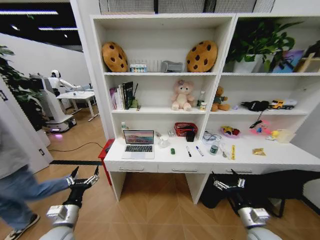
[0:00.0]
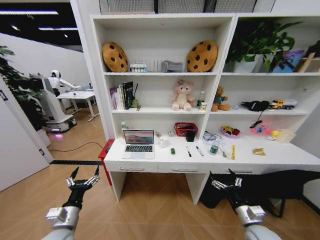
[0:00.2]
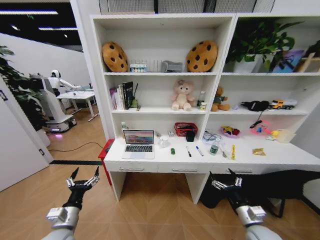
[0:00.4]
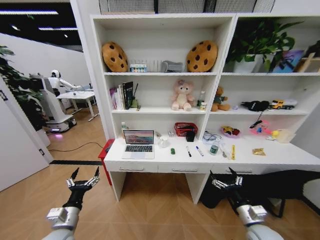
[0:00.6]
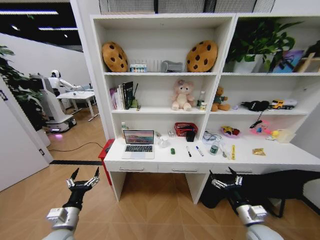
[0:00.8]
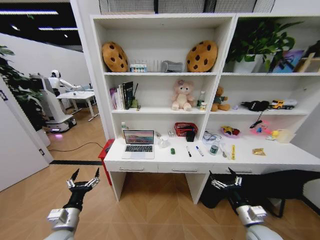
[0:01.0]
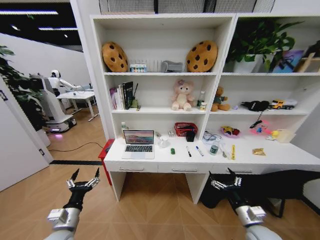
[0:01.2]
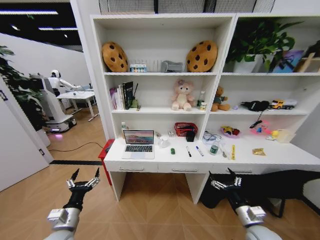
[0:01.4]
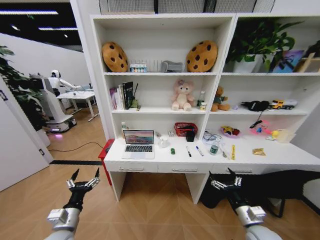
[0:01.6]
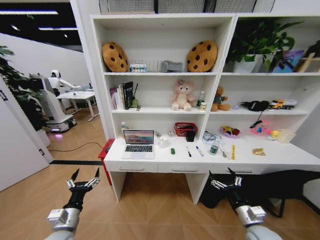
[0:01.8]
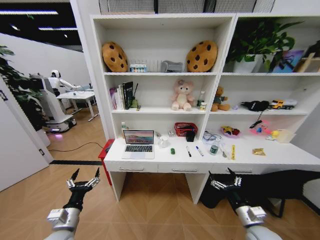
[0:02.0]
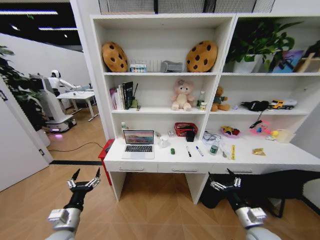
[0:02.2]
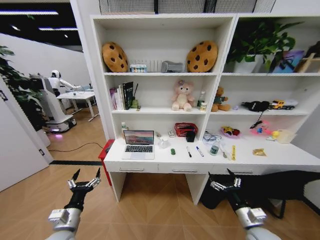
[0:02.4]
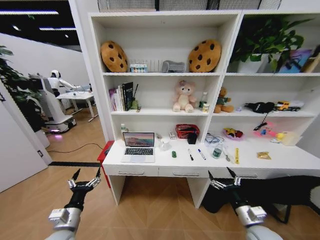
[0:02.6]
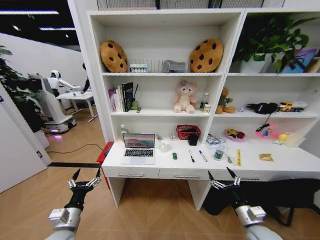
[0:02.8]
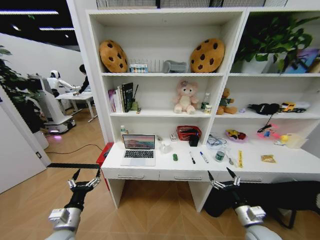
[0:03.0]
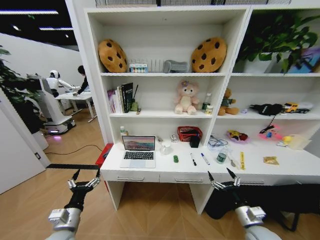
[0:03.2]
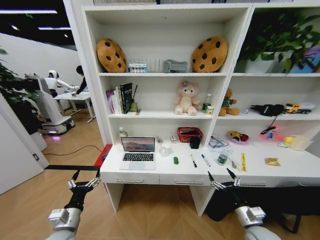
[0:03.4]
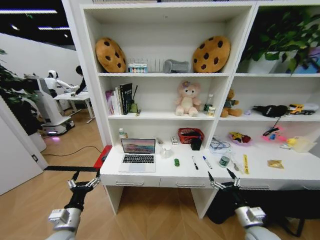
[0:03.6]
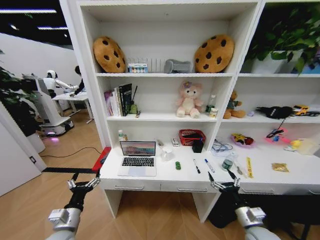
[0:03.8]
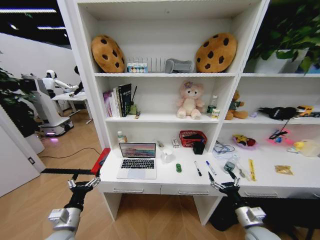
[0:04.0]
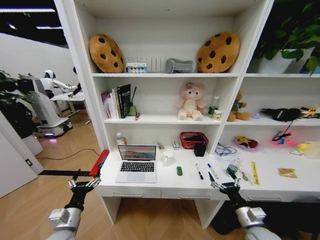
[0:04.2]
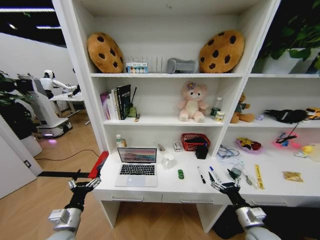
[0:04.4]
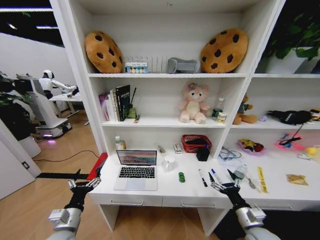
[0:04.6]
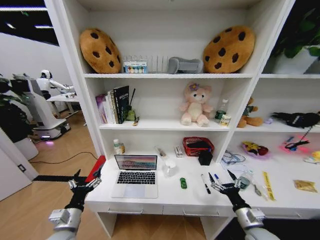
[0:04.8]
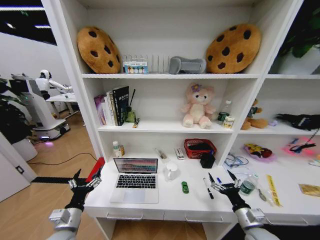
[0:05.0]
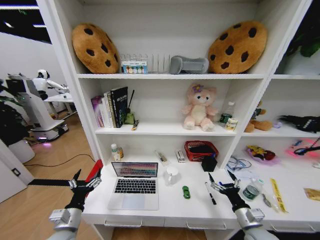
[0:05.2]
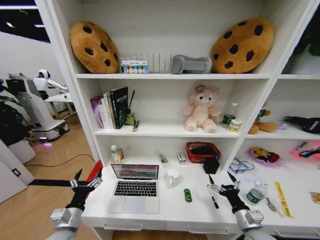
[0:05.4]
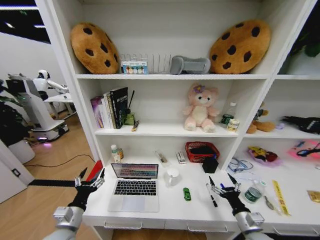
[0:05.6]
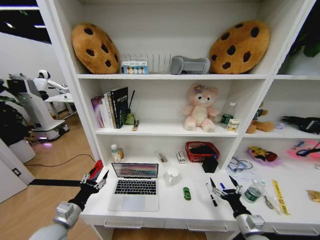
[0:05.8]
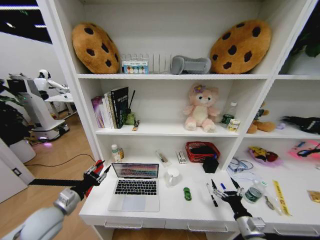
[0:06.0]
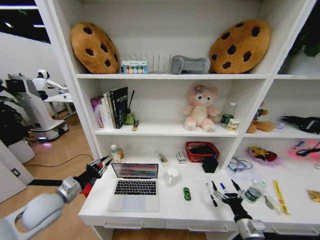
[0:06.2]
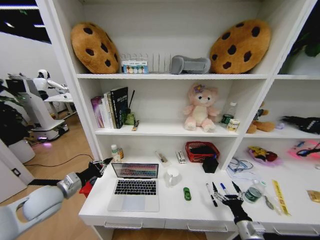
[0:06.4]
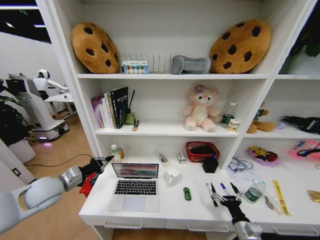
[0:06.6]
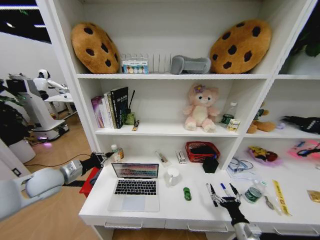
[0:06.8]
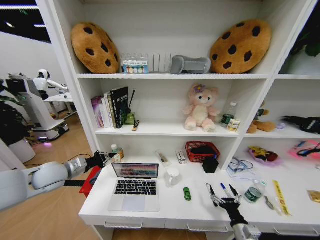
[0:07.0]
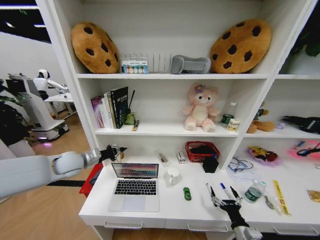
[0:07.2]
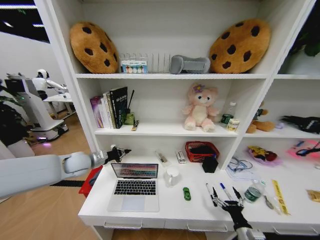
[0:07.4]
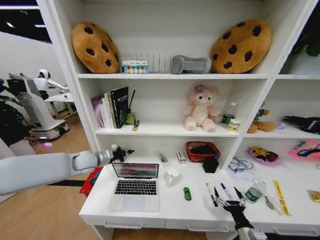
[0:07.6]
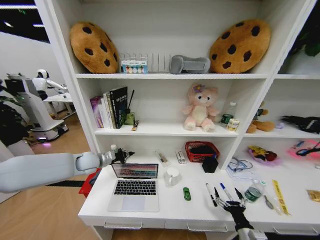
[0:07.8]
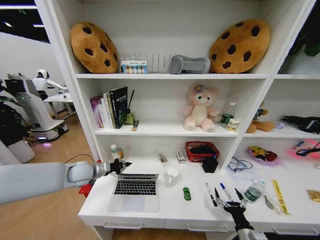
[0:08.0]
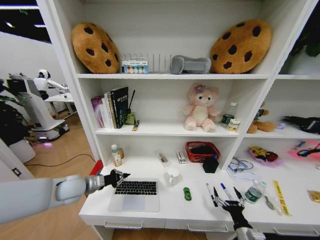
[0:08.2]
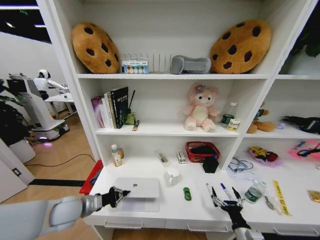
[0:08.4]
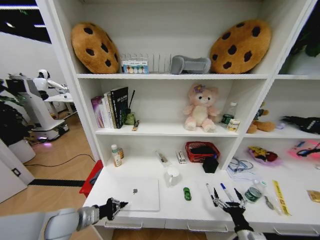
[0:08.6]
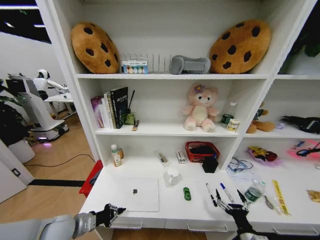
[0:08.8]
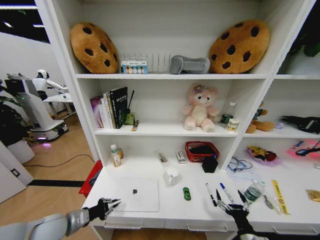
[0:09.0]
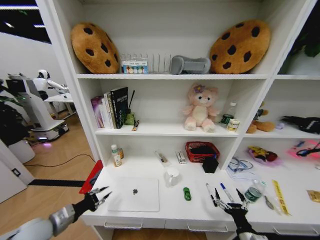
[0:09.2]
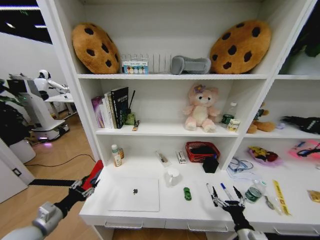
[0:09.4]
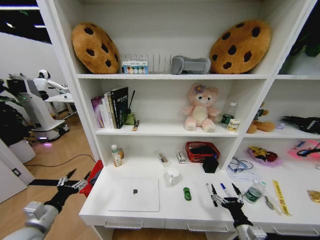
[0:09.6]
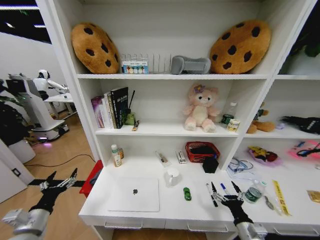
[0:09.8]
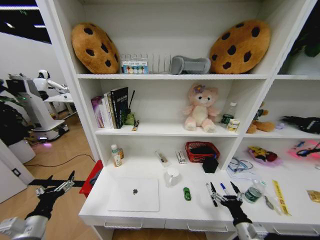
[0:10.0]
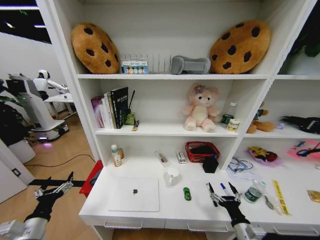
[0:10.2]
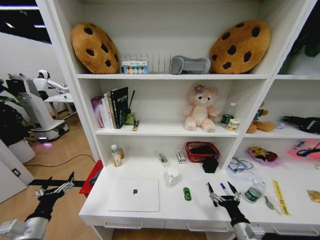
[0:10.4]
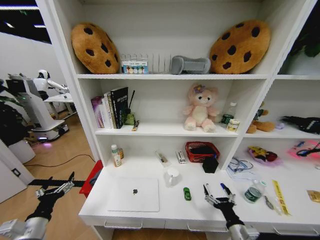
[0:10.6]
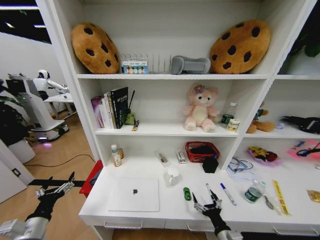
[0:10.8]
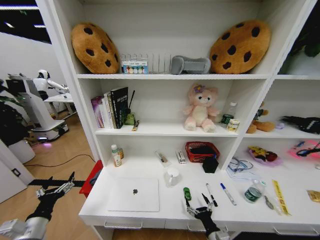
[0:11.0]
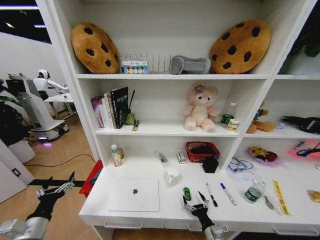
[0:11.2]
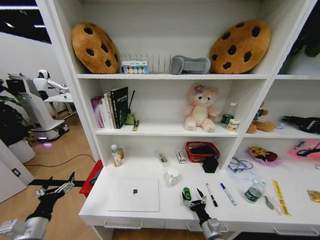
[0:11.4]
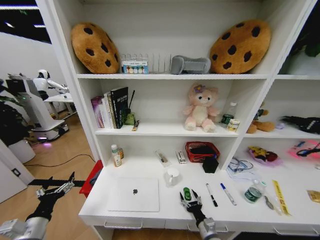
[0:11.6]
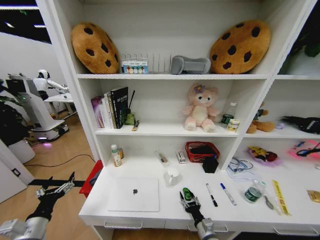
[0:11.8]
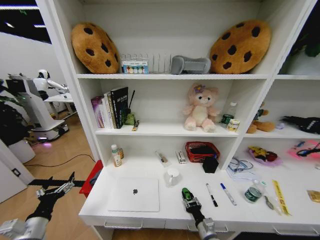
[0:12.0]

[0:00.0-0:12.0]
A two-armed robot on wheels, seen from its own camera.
Task of the whole recording: Organize the objects on the table.
0:04.4 to 0:06.0: The left gripper is displaced upward by some 5 cm, and closes.
0:06.0 to 0:07.6: The left gripper goes approximately 20 cm forward, and closes up.
0:07.6 to 0:09.0: The left gripper shifts some 25 cm backward and downward.
0:09.0 to 0:10.4: The left gripper goes about 5 cm backward, and opens its fingers.
0:10.4 to 0:12.0: The right gripper heads downward and to the left, covering some 15 cm, and closes its fingers.

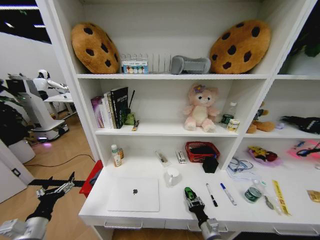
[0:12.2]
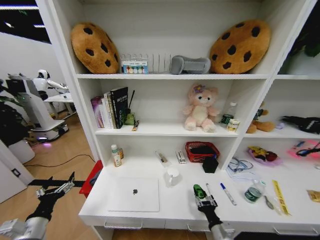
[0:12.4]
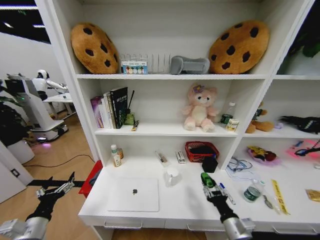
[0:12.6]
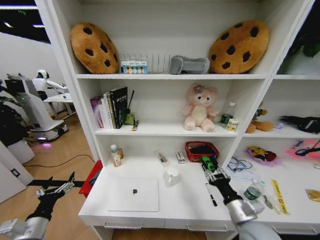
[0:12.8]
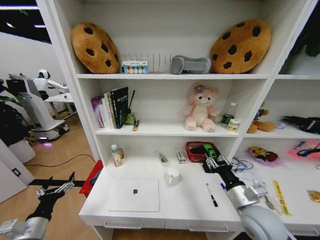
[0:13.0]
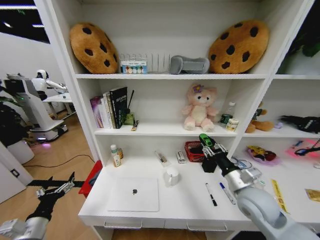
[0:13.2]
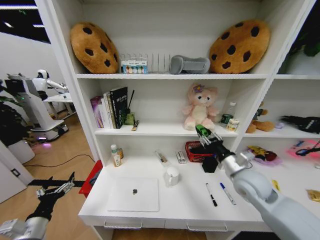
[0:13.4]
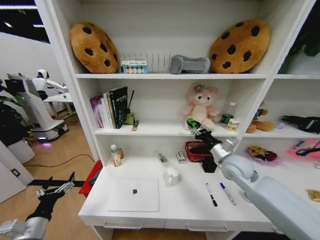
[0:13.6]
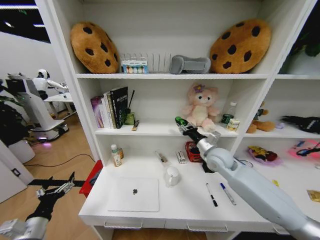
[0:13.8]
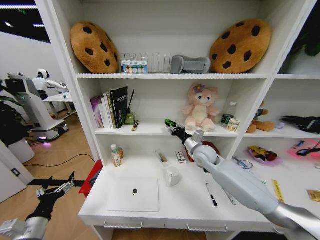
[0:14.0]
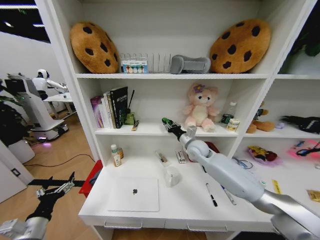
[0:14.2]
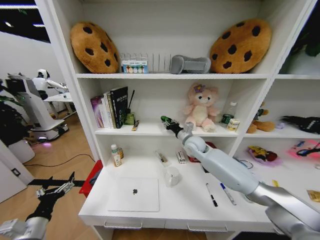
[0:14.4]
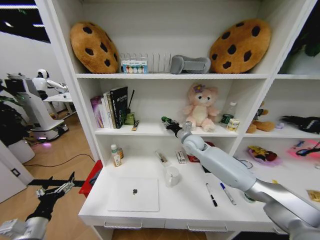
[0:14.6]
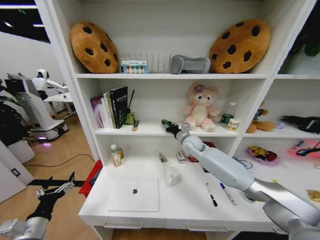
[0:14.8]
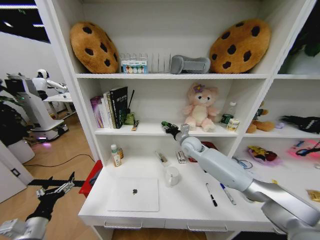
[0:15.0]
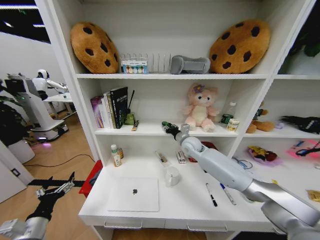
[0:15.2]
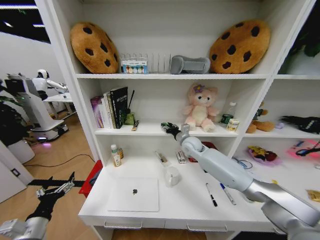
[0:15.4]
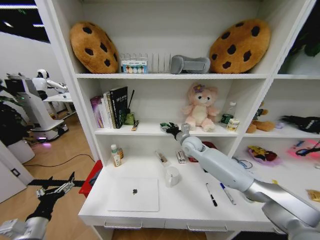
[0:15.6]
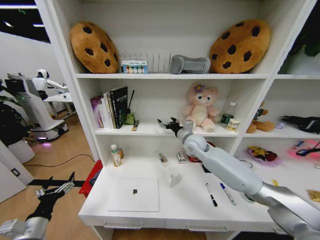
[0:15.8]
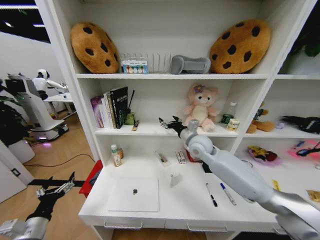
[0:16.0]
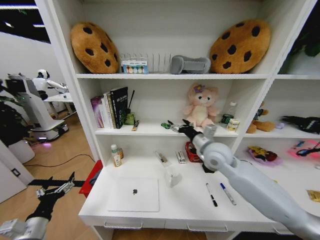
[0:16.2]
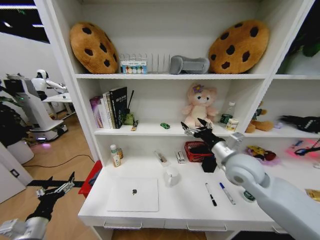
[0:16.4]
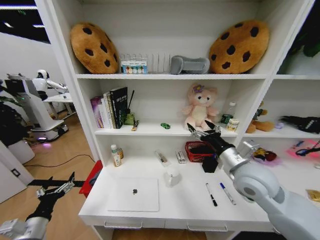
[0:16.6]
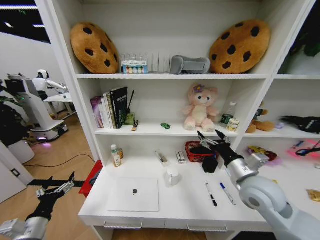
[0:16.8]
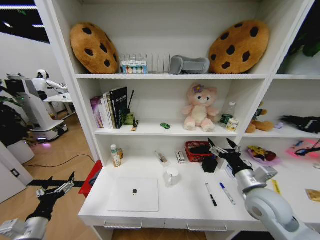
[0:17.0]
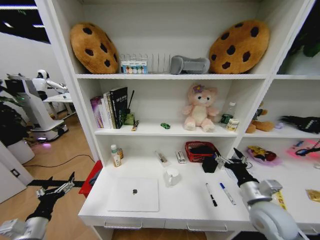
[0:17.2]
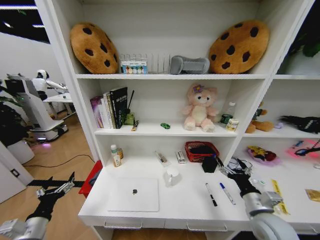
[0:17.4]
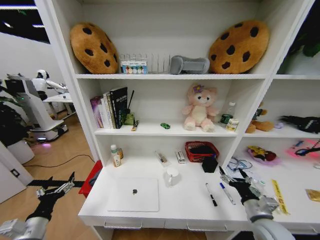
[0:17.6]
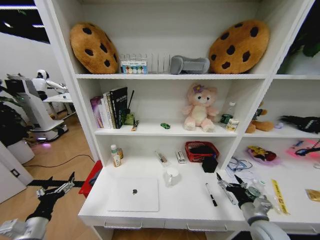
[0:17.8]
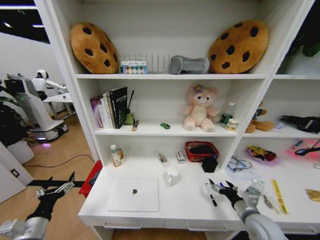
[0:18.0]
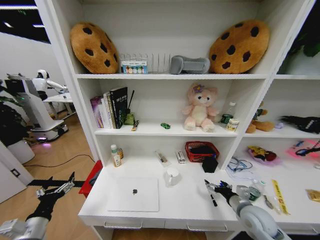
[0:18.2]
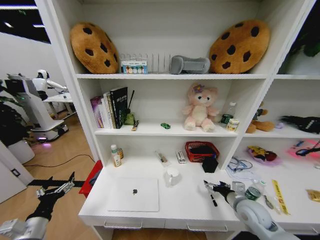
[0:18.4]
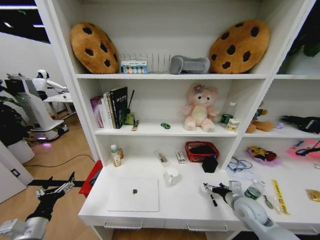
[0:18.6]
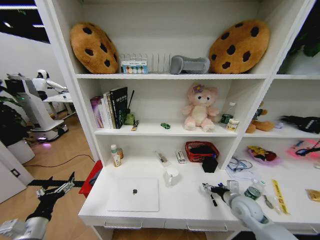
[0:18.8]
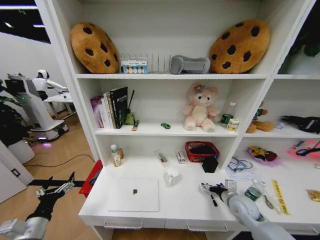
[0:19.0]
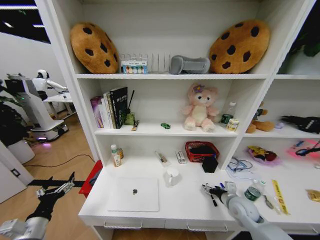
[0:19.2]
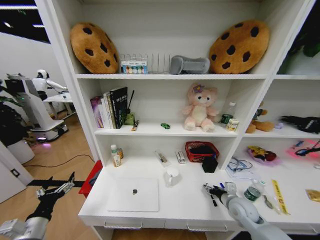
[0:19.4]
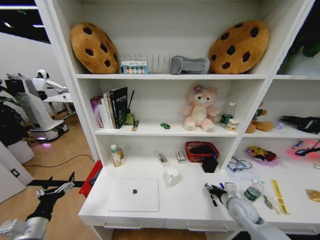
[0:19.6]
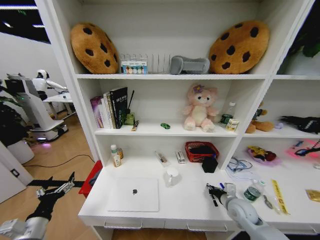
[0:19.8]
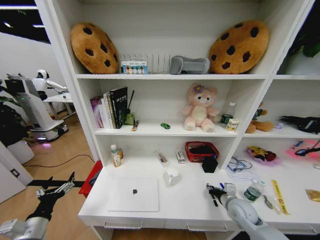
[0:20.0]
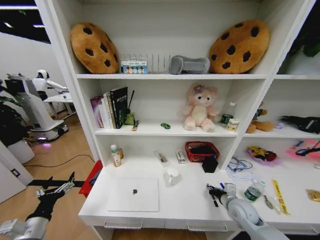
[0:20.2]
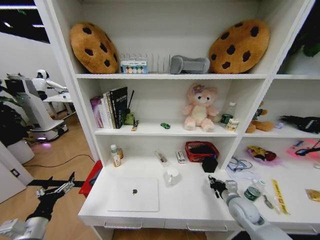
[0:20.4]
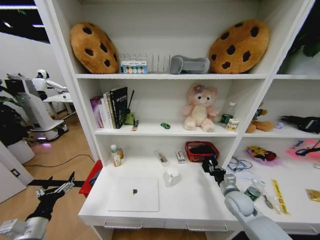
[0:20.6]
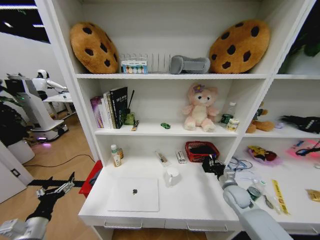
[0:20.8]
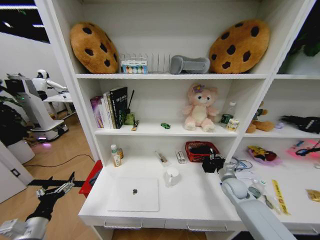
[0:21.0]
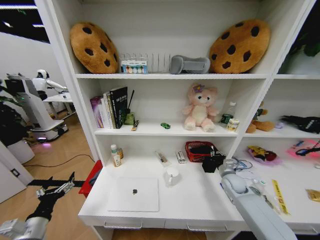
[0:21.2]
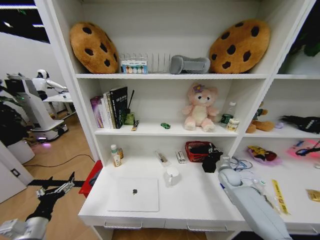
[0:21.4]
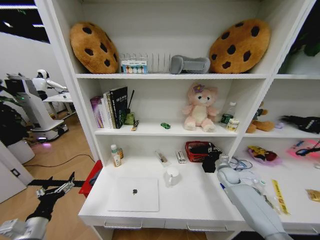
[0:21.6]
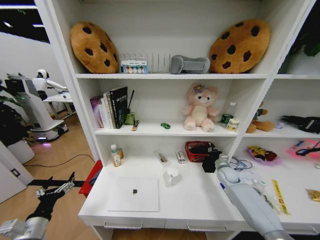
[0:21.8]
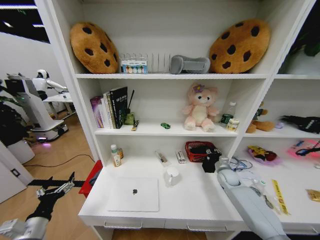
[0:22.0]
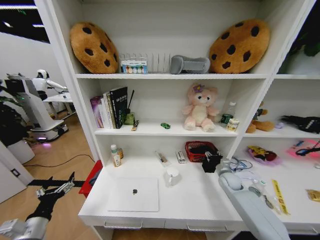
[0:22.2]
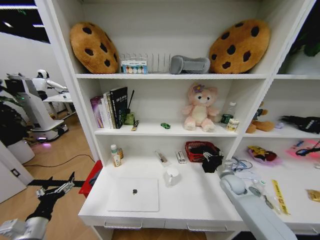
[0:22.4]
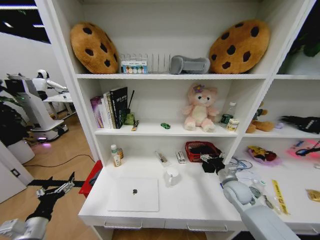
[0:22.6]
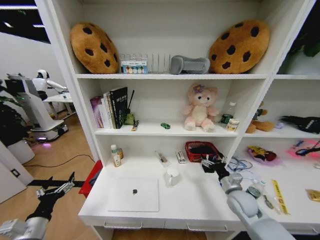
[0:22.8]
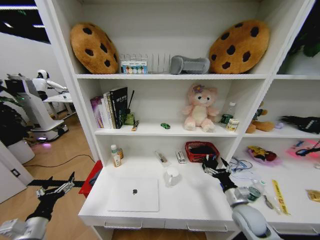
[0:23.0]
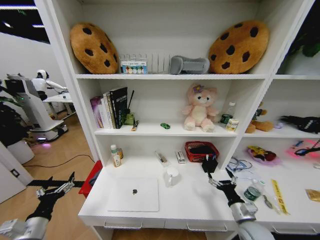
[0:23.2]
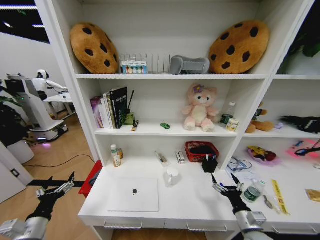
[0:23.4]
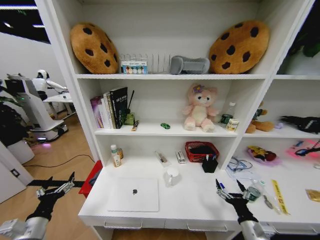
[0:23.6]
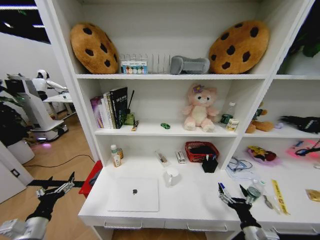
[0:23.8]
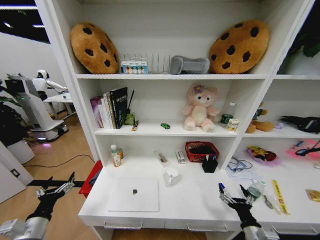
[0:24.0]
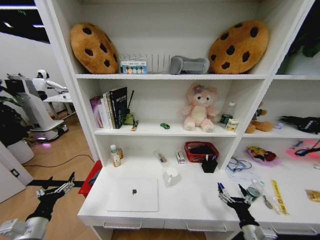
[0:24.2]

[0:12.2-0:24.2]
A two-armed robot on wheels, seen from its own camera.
Task of the whole recording: Organize the objects on the table.
0:12.2 to 0:13.8: The right gripper heads upward and forward, covering approximately 40 cm.
0:13.8 to 0:15.2: The right gripper shifts some 10 cm forward and to the left.
0:15.2 to 0:16.6: The right gripper shifts some 25 cm backward and to the right, and opens its fingers.
0:16.6 to 0:18.2: The right gripper heads downward and to the right, covering some 20 cm.
0:18.2 to 0:19.8: The right gripper shifts by about 5 cm, and closes.
0:19.8 to 0:21.2: The right gripper is displaced forward by about 10 cm.
0:21.2 to 0:22.6: The right gripper shifts by about 5 cm, and opens up.
0:22.6 to 0:24.2: The right gripper goes approximately 20 cm backward.
